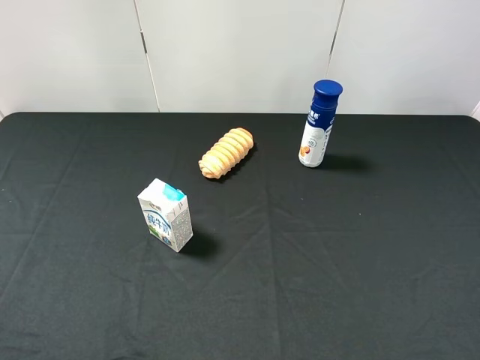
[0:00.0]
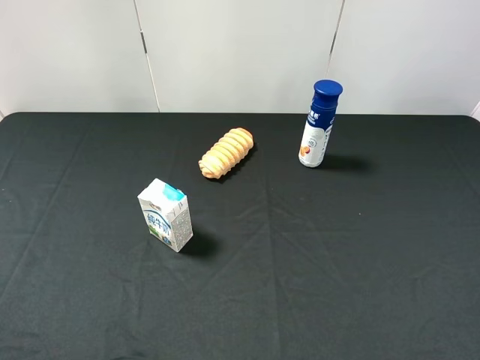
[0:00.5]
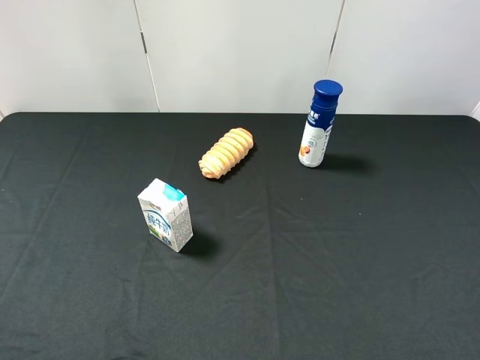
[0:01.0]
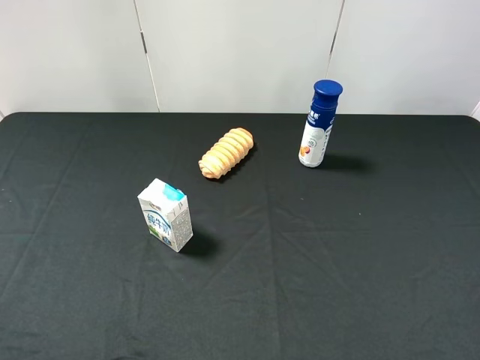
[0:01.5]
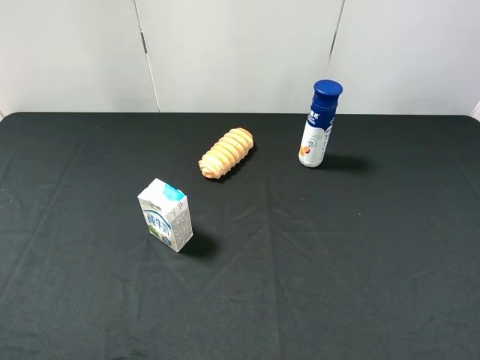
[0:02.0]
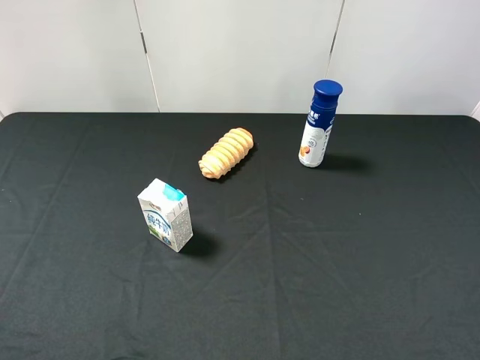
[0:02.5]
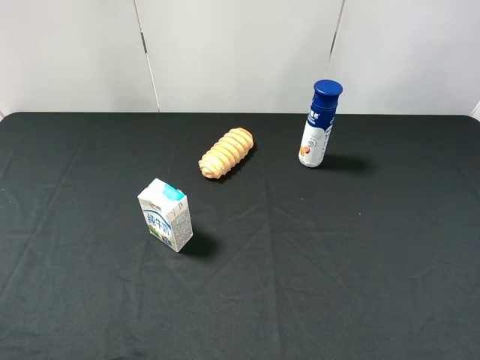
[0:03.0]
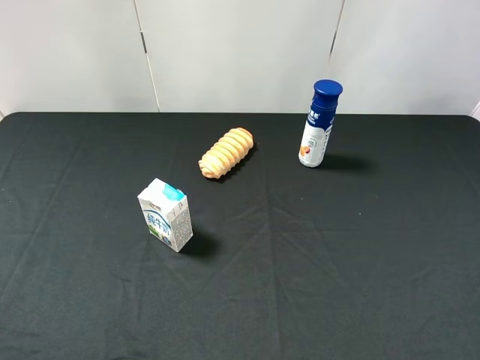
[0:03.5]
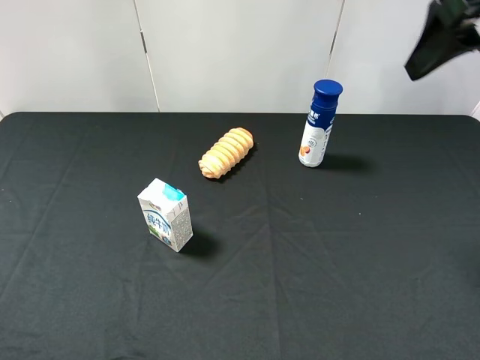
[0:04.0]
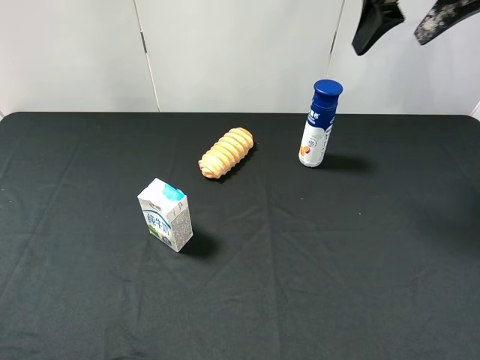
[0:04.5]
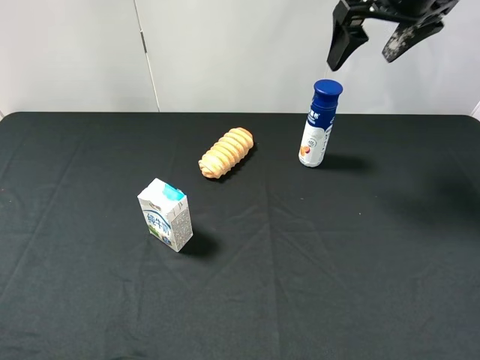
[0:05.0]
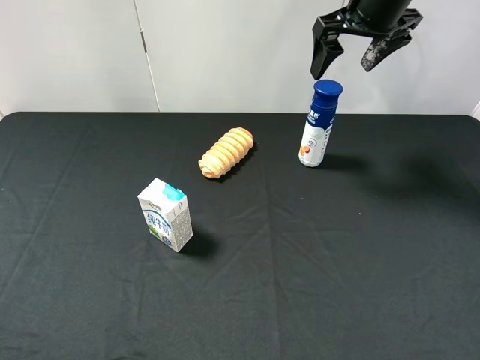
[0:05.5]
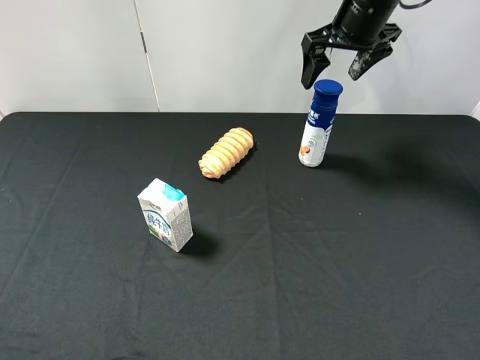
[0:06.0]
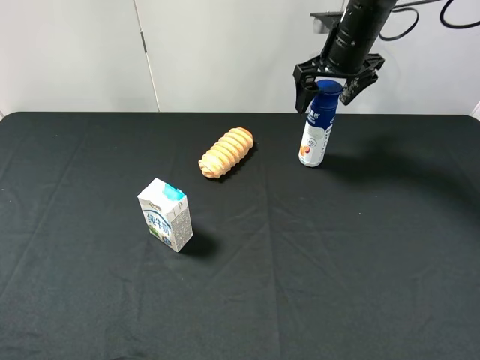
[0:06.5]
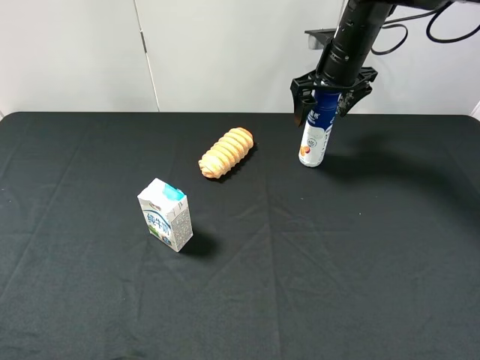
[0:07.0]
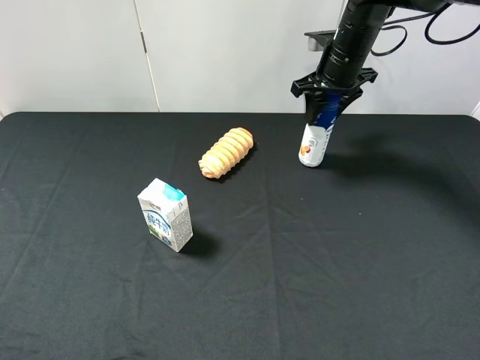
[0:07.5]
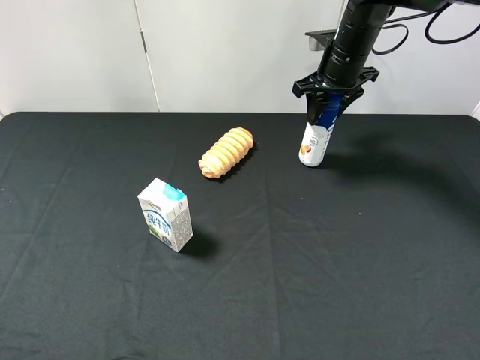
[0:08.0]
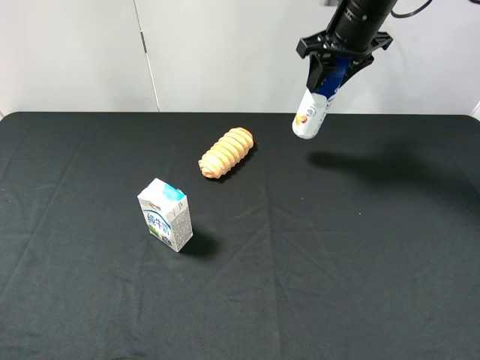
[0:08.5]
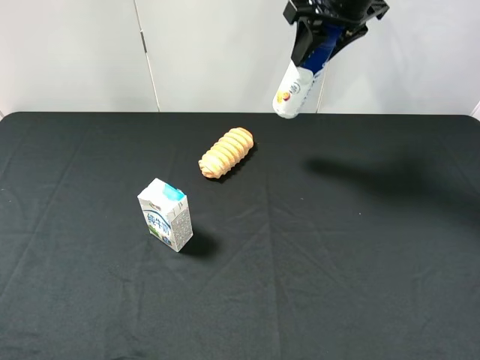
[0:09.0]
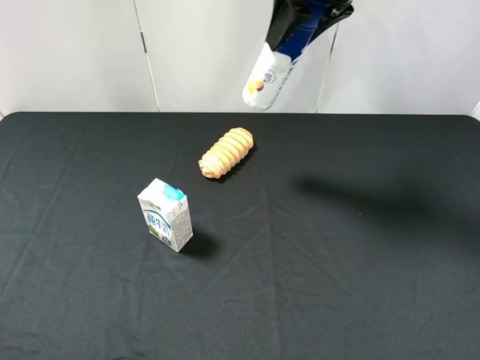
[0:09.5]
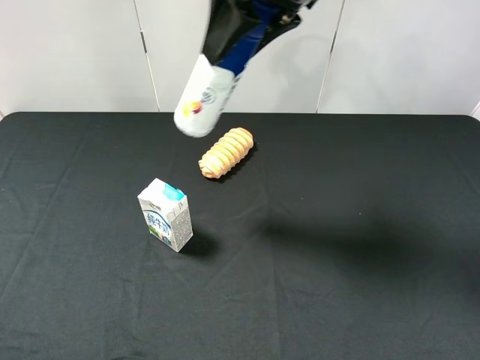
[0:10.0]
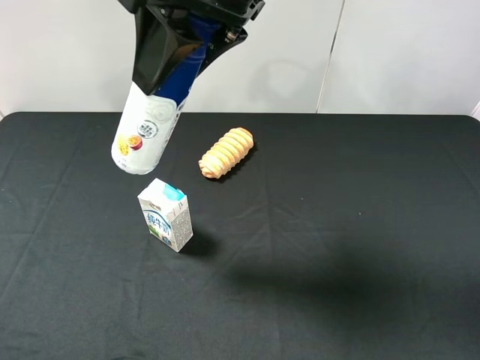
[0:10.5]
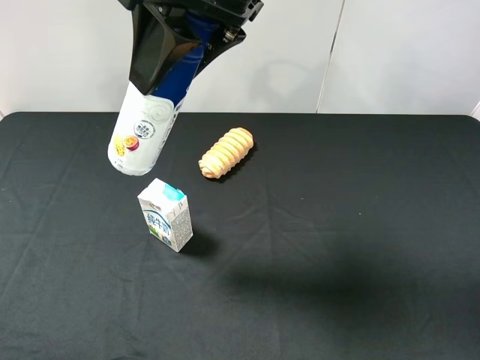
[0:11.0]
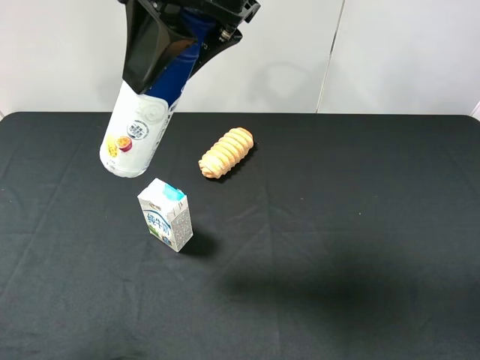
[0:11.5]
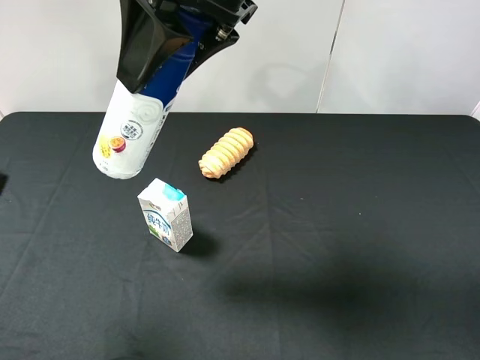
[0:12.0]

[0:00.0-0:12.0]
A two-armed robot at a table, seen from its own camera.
Task of the whole recording: use the right gripper to pick up the item and transfer it from the right gripper to the left gripper.
Step, 0:00.0 to 0:07.5: Use the right gripper to grab the yogurt on the right side of the table.
0:00.0 to 0:02.0: Both grippers stay put.
0:02.0 to 0:04.0: The right gripper is displaced forward and upward by approximately 25 cm.
0:04.0 to 0:06.0: The right gripper goes roughly 20 cm forward and downward.
0:06.0 to 0:08.0: The right gripper moves downward, approximately 5 cm, and closes up.
0:08.0 to 0:10.0: The right gripper is displaced backward, upward and to the left by about 25 cm.
0:10.0 to 0:12.0: The left gripper goes about 15 cm forward, upward and to the right. Meanwhile the right gripper is displaced backward by about 5 cm.

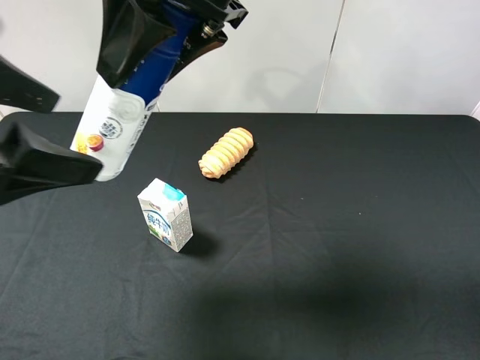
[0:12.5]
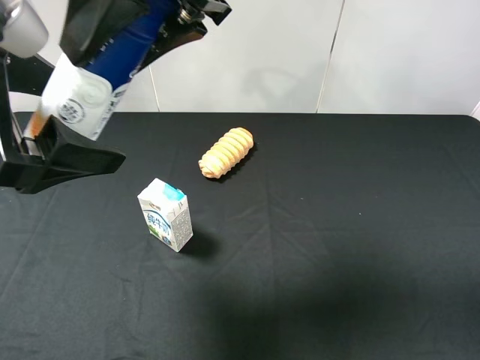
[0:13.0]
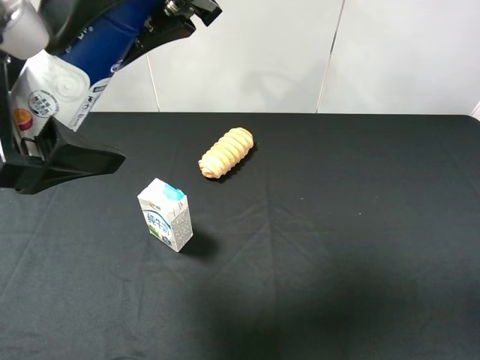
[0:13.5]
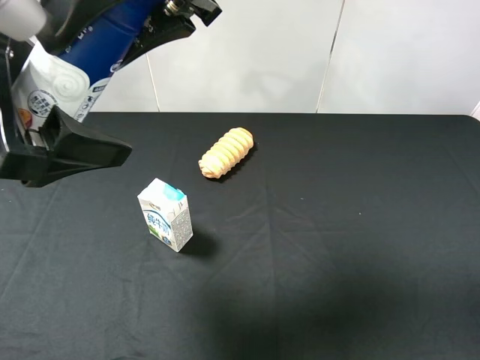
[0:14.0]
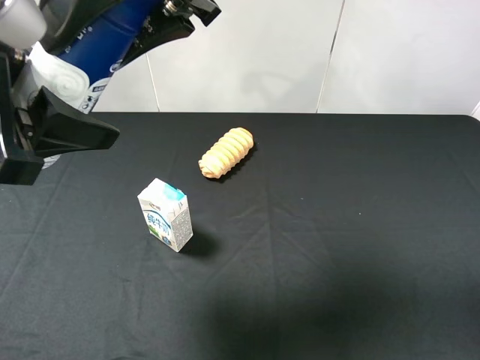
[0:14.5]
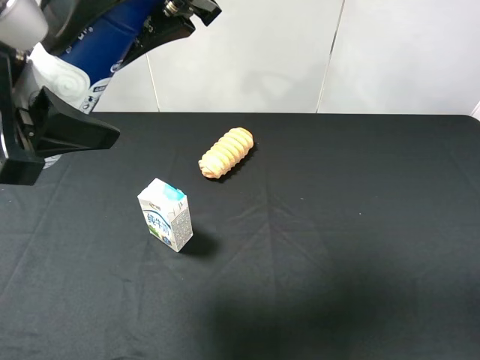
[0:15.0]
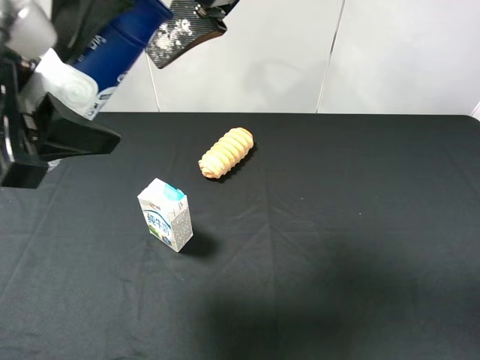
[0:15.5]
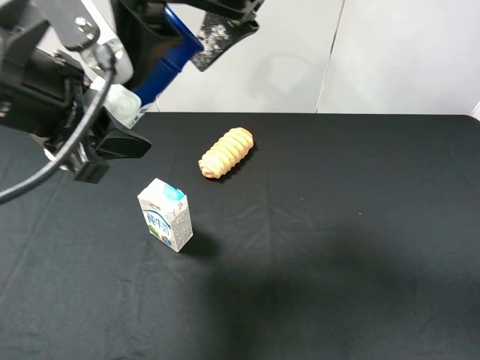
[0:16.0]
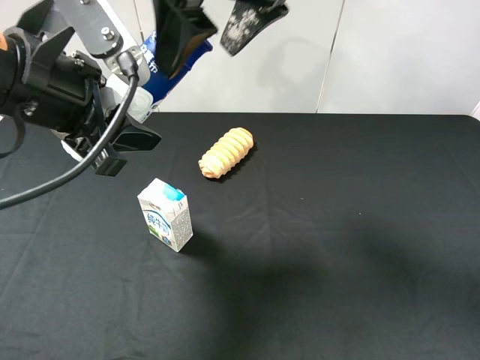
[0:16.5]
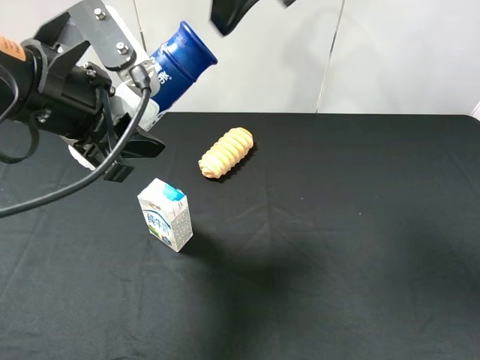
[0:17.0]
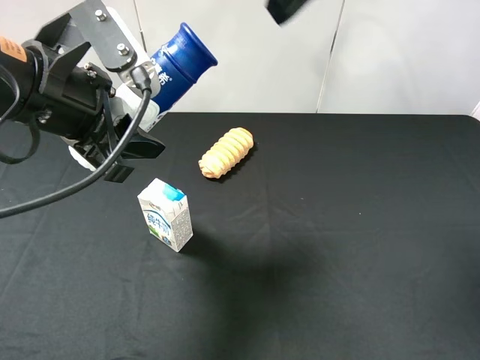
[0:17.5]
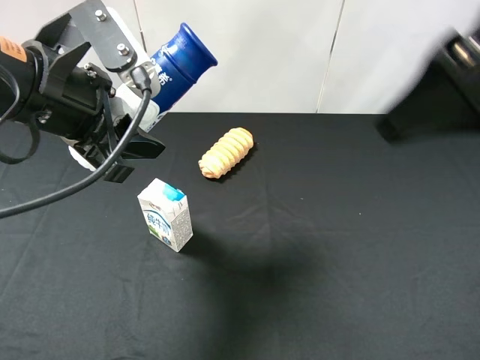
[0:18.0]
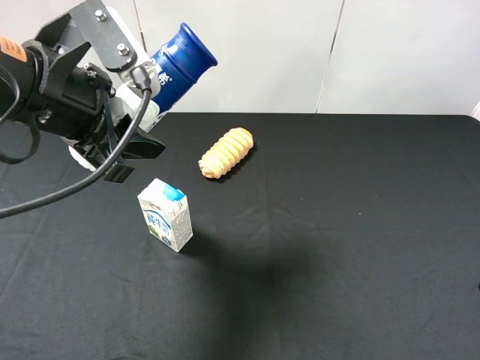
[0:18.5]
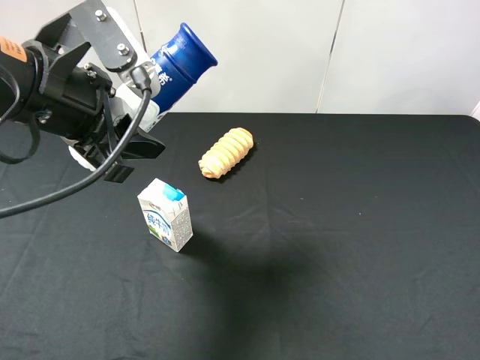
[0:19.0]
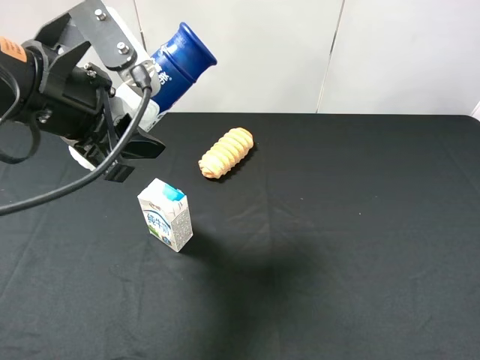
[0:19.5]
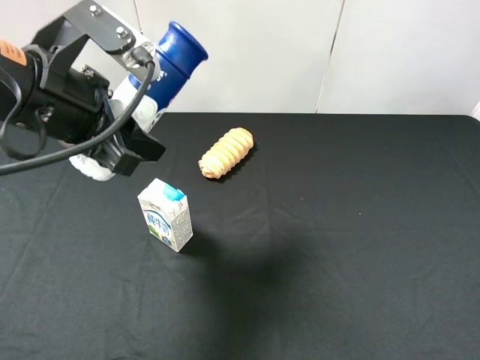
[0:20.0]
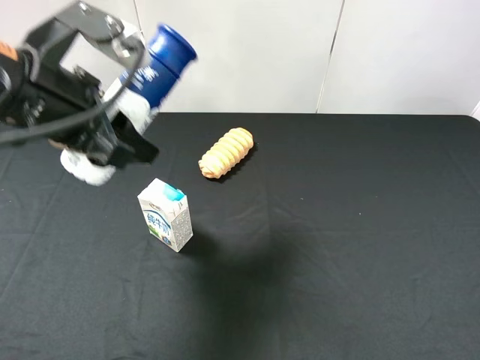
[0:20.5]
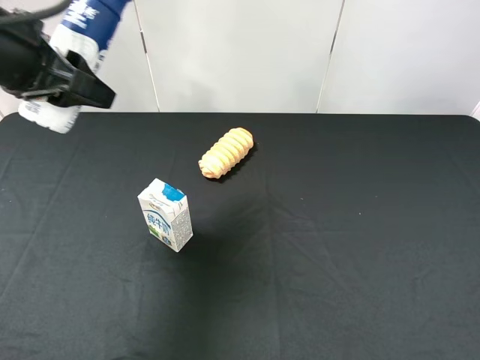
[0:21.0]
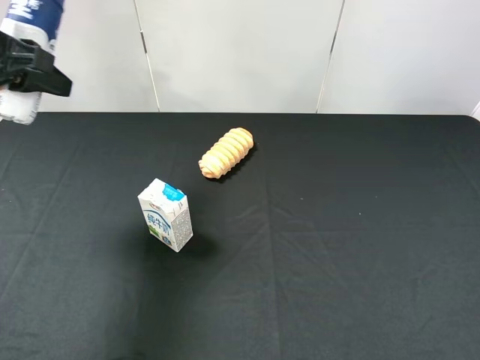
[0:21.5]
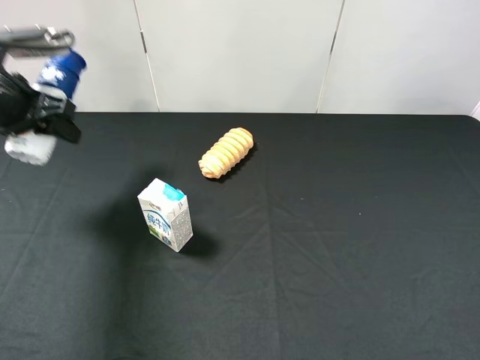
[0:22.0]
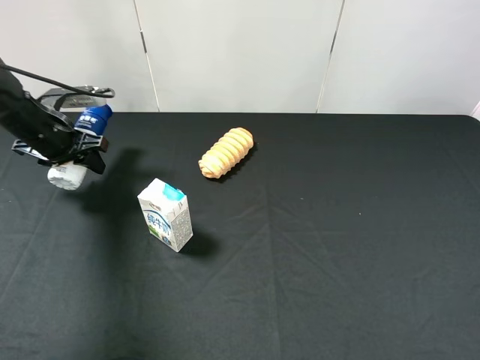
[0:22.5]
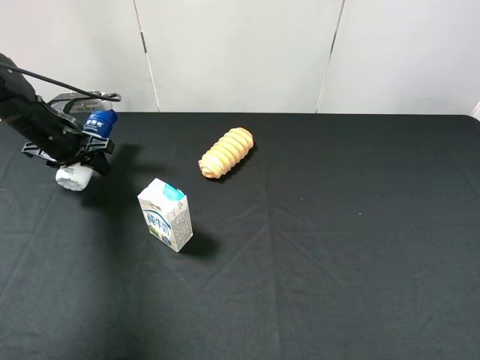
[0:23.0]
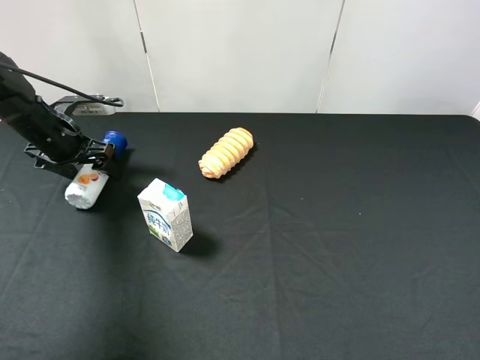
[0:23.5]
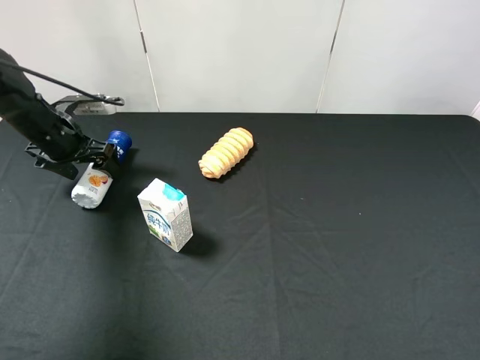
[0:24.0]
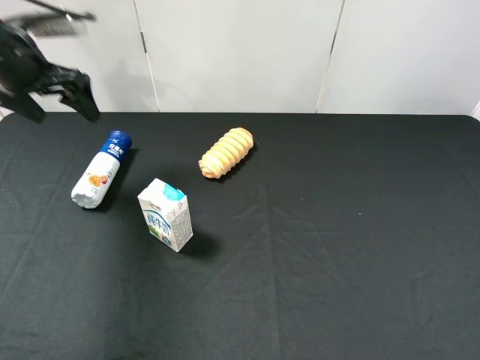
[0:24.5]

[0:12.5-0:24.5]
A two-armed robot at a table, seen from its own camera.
Task of the whole recording: use the right gripper to pick up the item and transfer it from the right gripper to the left gripper.
Step, 0:12.5 to 0:15.5: Pass the yogurt to the left gripper.
Step, 0:16.0 to 0:23.5: The left gripper places yogurt on the left side of the table.
0:12.5 to 0:14.5: The left gripper closes up.
0:14.5 to 0:16.5: The right gripper changes place by approximately 5 cm, and opens its fingers. Meanwhile the left gripper moves some 5 cm.
0:16.5 to 0:18.5: The right gripper goes roughly 35 cm to the right and backward.
0:18.5 to 0:20.5: The right gripper changes place by roughly 5 cm.
0:20.5 to 0:22.5: The left gripper is displaced downward, forward and to the left by about 25 cm.
0:22.5 to 0:24.5: The left gripper goes roughly 10 cm upward, and opens up.

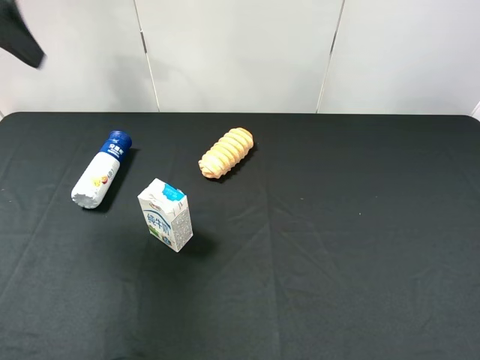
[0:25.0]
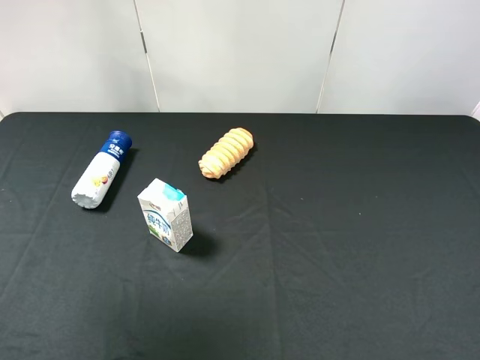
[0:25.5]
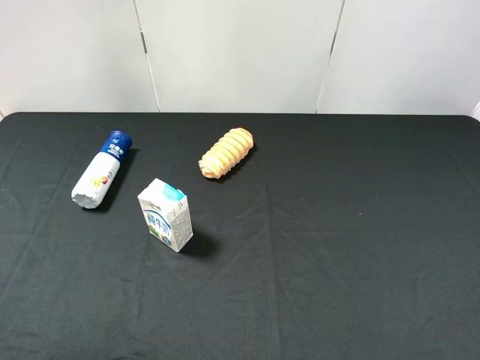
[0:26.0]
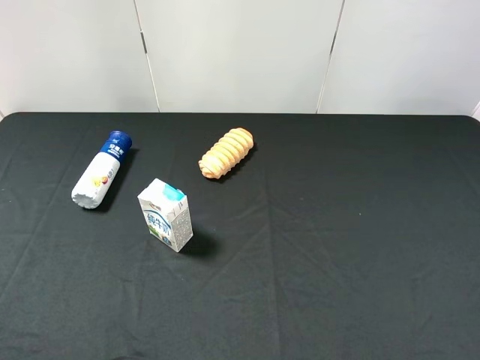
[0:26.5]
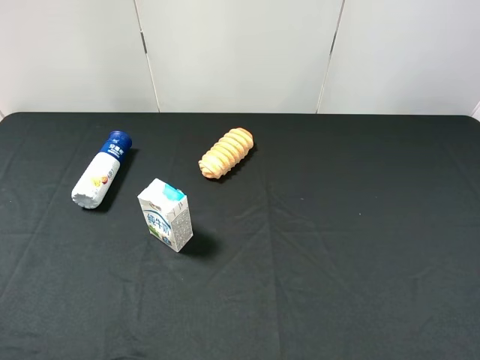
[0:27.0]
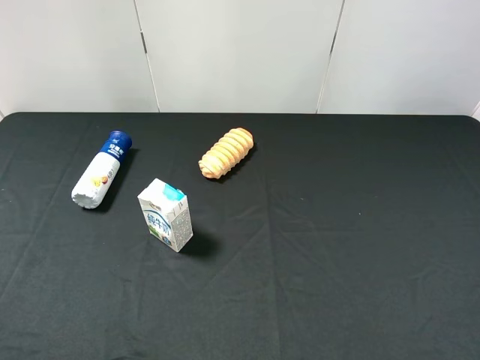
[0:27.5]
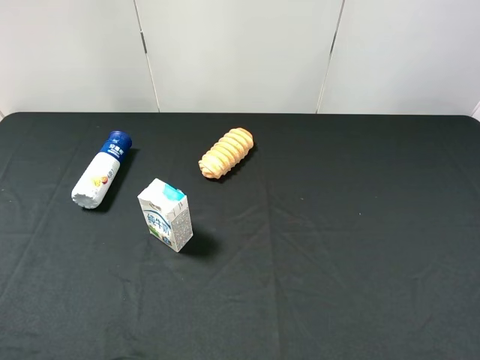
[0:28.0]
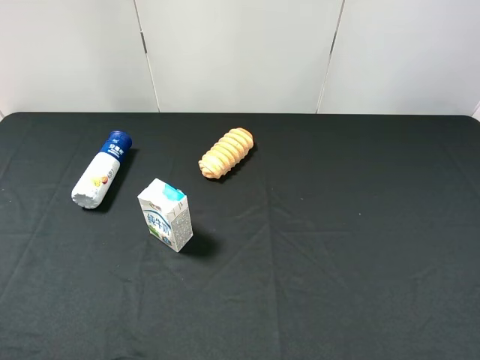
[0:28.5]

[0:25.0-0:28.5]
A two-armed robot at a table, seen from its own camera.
Task of the whole recording: use the right gripper to pick up the item and transfer it from the right gripper to the left gripper.
0:25.0 to 0:27.0: The left gripper moves backward, roughly 25 cm.
0:27.0 to 0:28.5: Neither gripper changes place.
